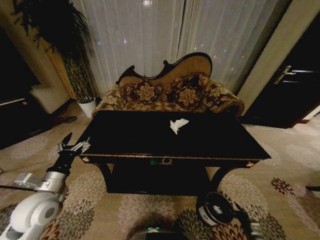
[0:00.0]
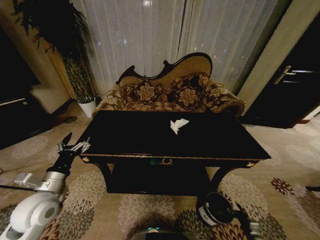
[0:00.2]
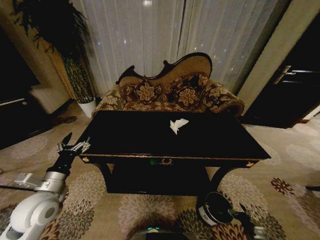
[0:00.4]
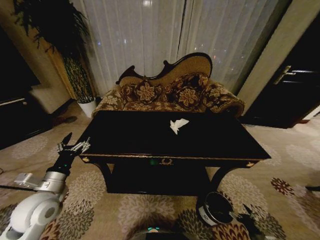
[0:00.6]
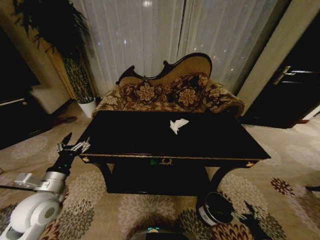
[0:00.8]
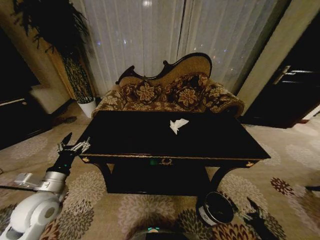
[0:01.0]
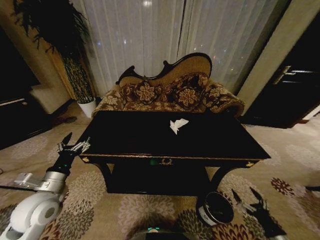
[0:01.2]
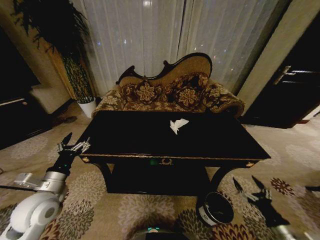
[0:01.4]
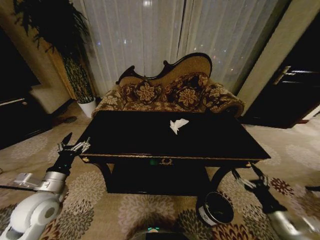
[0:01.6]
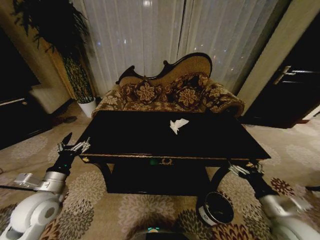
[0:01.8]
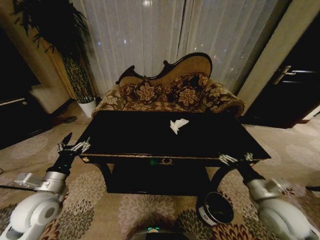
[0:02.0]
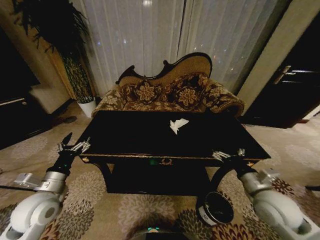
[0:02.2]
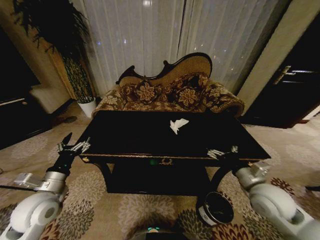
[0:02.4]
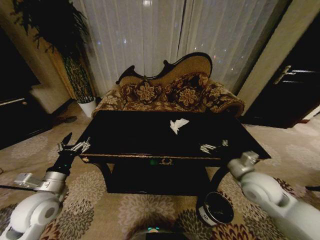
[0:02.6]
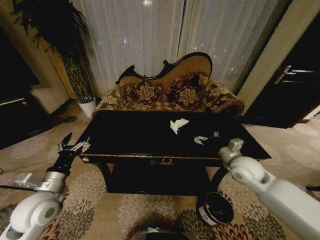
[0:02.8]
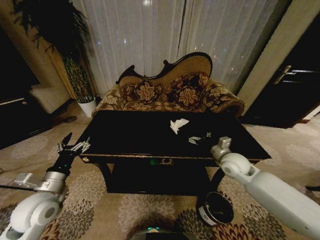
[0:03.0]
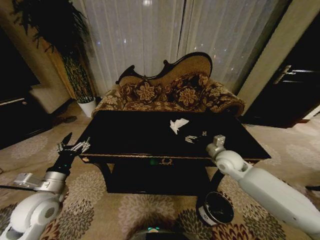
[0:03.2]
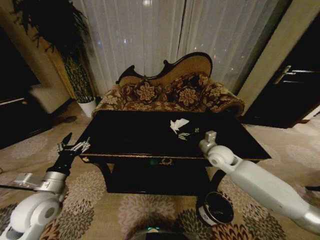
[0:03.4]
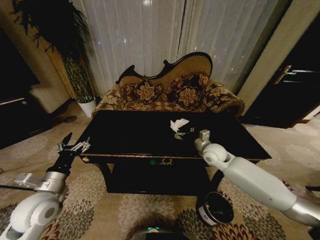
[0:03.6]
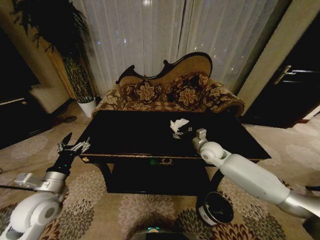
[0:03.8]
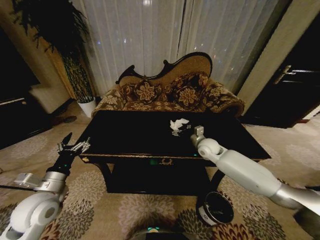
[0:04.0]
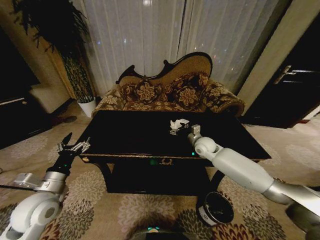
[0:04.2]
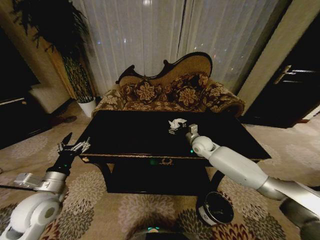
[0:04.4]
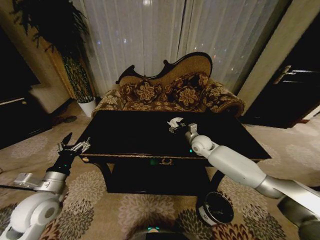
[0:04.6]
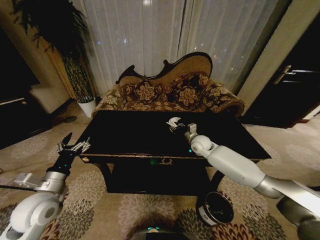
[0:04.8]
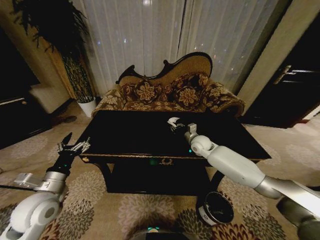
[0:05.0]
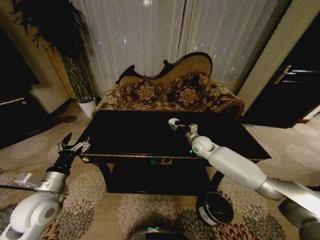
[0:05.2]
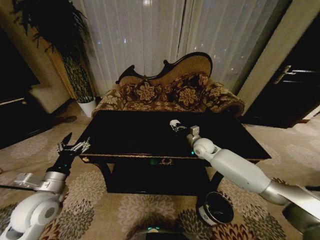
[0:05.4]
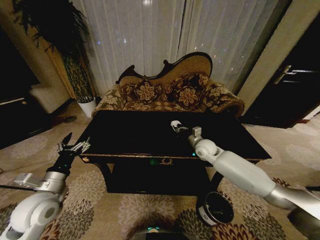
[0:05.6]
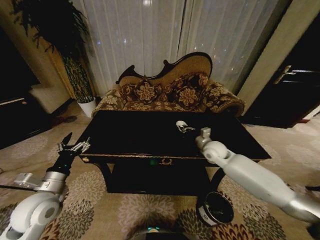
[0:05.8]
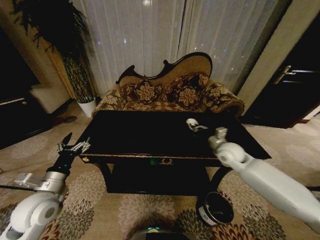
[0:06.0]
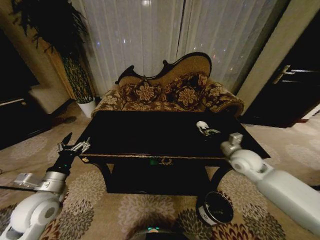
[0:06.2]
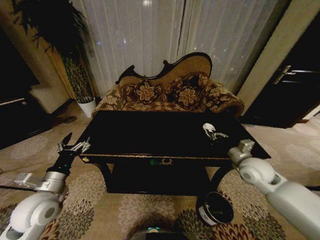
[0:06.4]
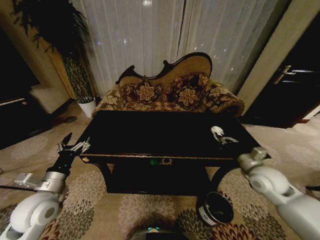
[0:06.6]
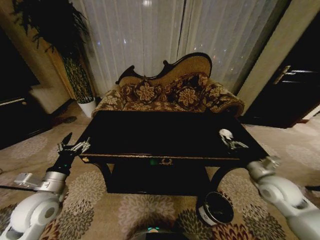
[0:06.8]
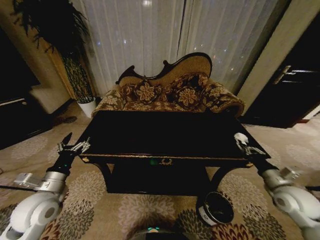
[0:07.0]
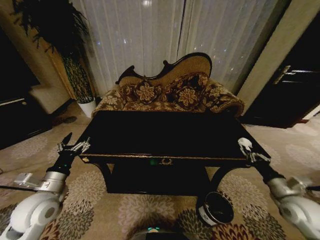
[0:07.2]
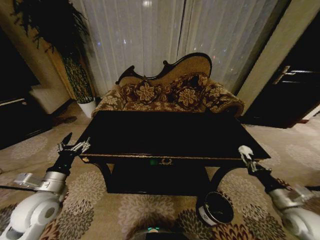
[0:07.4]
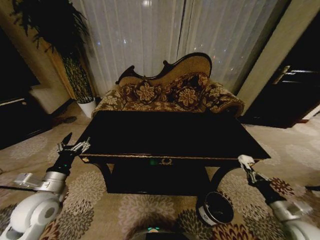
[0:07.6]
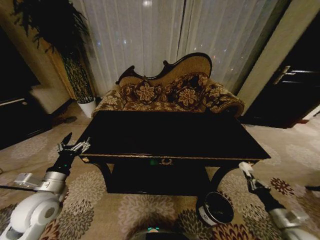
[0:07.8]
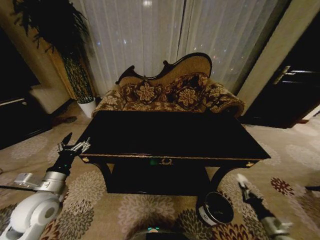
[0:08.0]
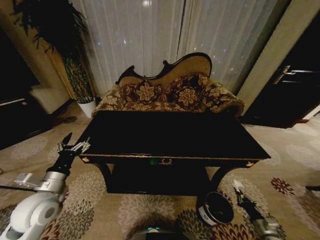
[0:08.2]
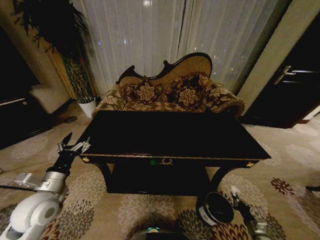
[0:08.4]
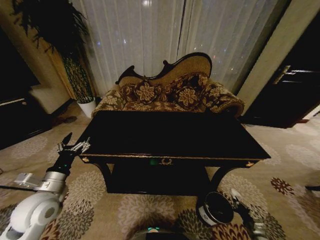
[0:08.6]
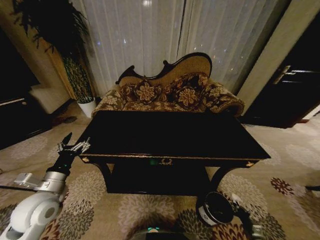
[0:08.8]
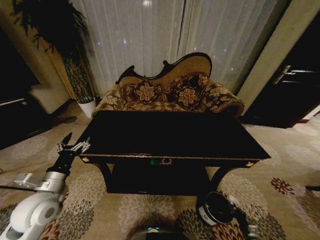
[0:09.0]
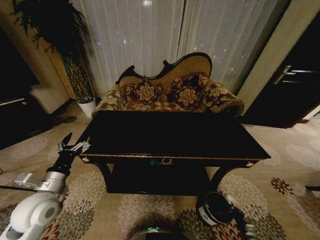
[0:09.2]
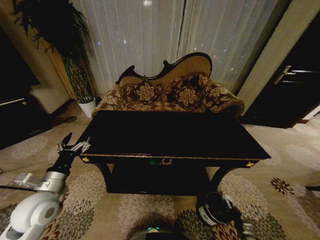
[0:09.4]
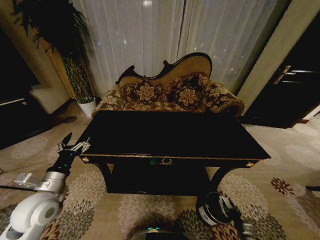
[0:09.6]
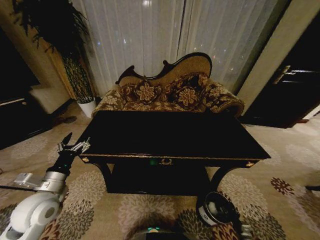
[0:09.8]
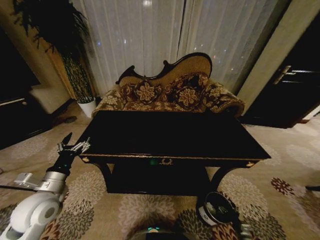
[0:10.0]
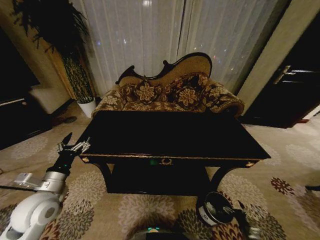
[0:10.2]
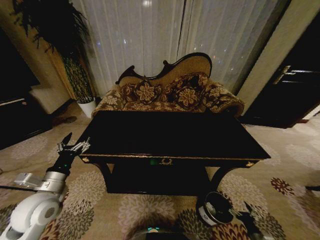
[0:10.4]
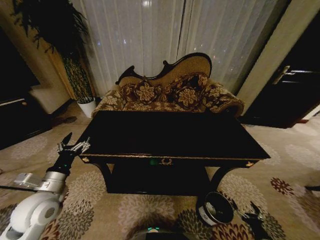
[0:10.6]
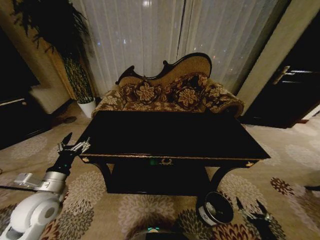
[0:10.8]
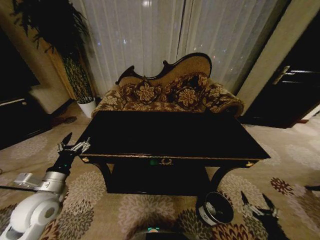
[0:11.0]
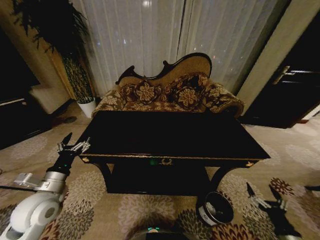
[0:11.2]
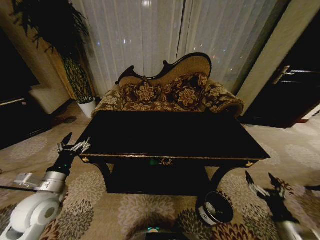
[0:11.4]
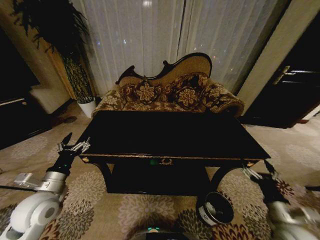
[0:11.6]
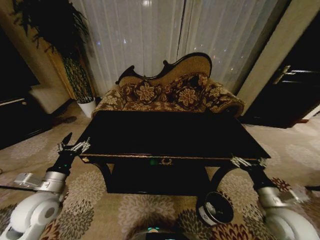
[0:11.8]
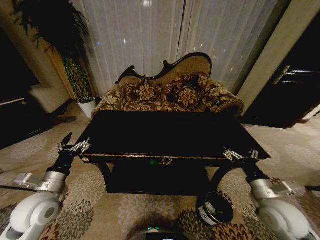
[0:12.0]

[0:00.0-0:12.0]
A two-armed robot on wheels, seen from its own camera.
Task of the whole recording: Move to the front of the table and place the trash on the table into the trash bin.
0:00.0 to 0:01.6: The right gripper goes some 30 cm upward, and opens its fingers.
0:01.6 to 0:03.0: The right gripper goes some 25 cm forward and to the left.
0:03.0 to 0:04.4: The right gripper travels forward and to the left by roughly 15 cm.
0:04.4 to 0:06.0: The right gripper is displaced backward and to the right by approximately 15 cm, and closes its fingers.
0:06.0 to 0:07.6: The right gripper heads backward, to the right and downward, covering some 35 cm.
0:07.6 to 0:09.0: The right gripper moves downward, some 30 cm.
0:09.0 to 0:10.4: The right gripper heads upward, covering about 5 cm, and opens its fingers.
0:10.4 to 0:12.0: The right gripper shifts approximately 35 cm upward and to the left.

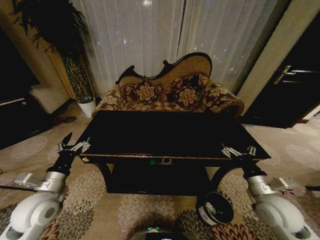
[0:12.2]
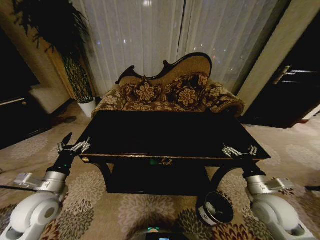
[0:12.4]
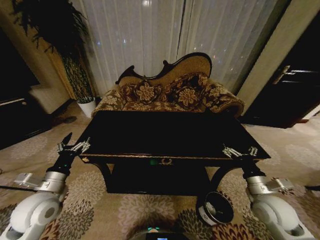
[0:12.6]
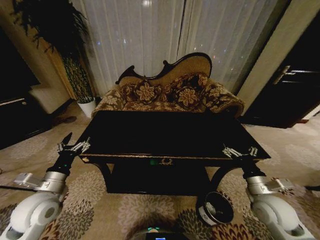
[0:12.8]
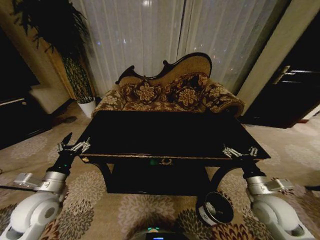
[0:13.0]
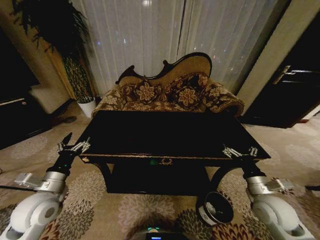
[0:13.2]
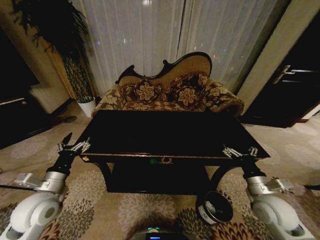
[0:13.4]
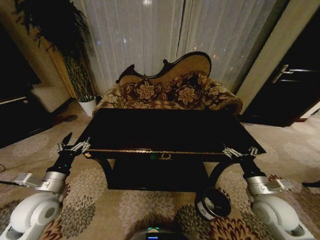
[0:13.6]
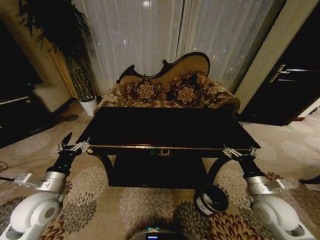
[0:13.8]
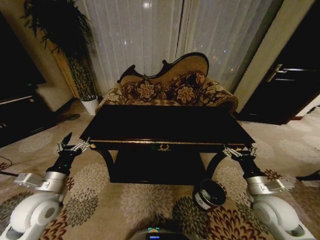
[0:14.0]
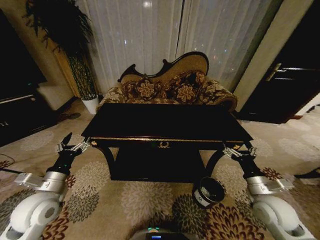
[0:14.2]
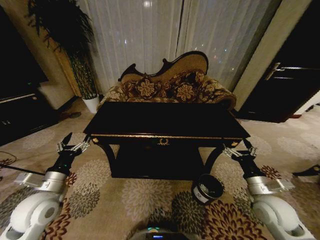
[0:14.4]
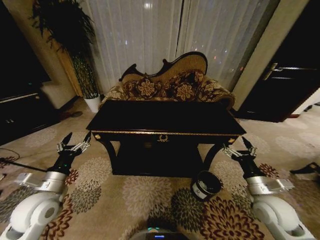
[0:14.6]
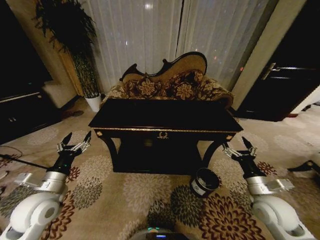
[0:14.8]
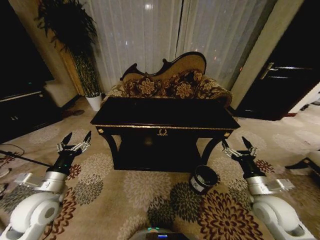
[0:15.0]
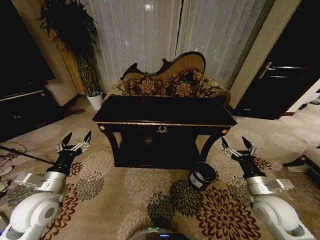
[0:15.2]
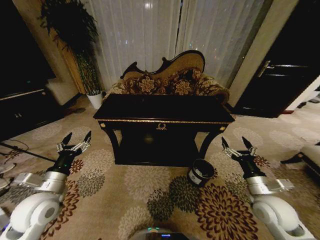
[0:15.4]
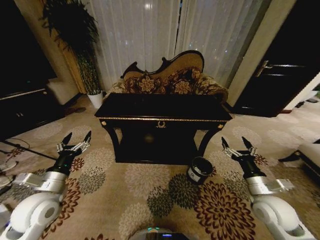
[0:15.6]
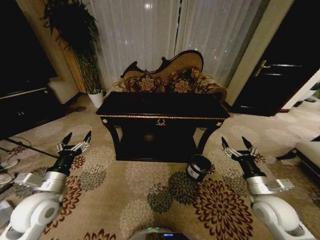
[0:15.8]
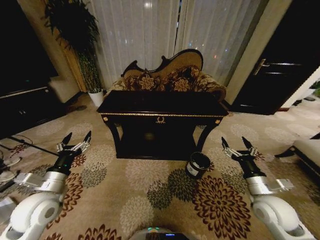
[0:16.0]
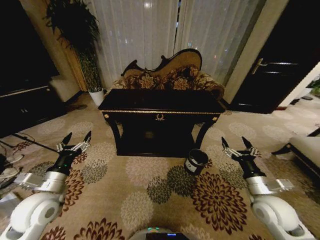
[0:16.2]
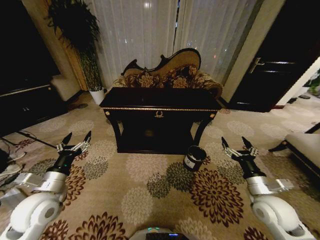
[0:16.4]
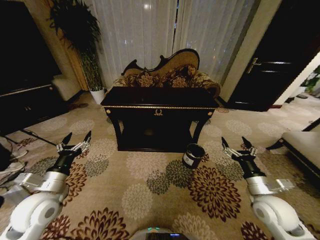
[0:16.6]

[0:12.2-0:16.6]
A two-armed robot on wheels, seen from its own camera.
Task of the whole recording: Move to the front of the table and place the trash on the table into the trash bin.
0:12.2 to 0:13.6: The grippers move only a little.
